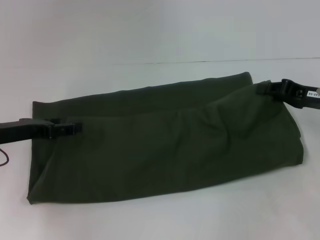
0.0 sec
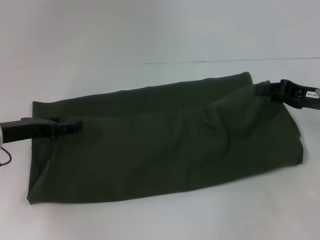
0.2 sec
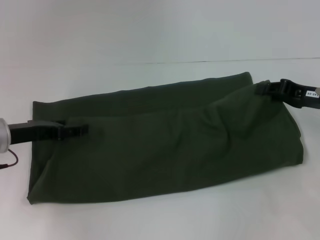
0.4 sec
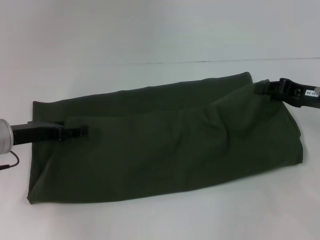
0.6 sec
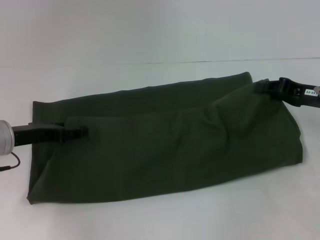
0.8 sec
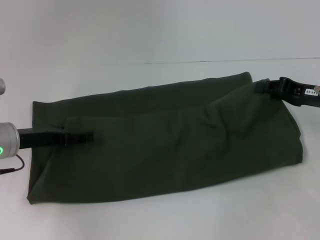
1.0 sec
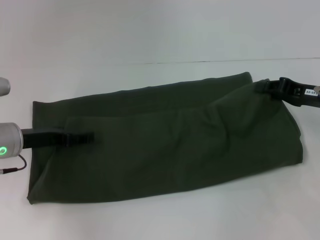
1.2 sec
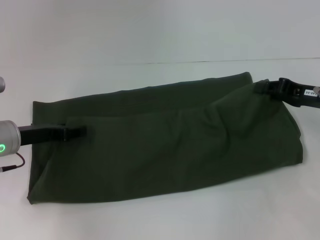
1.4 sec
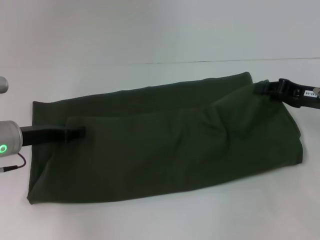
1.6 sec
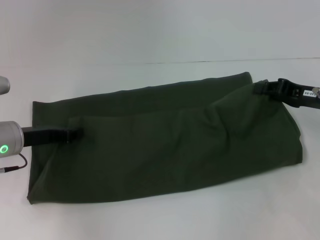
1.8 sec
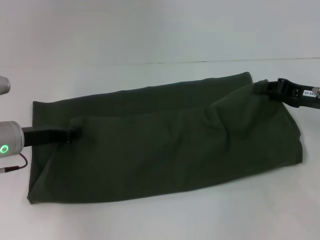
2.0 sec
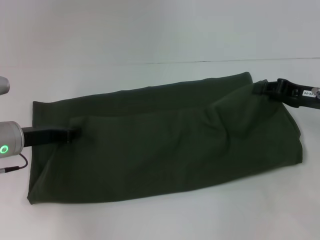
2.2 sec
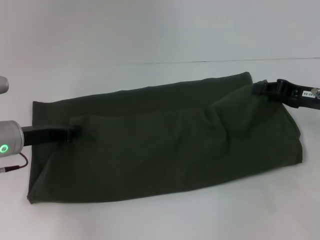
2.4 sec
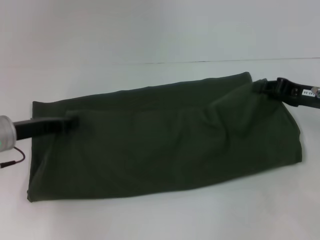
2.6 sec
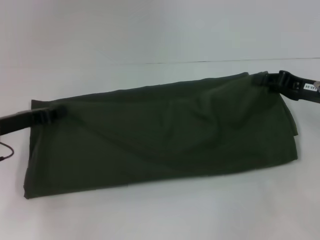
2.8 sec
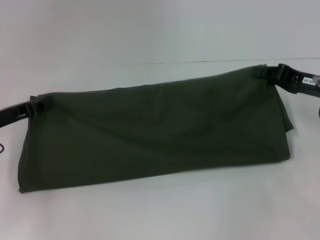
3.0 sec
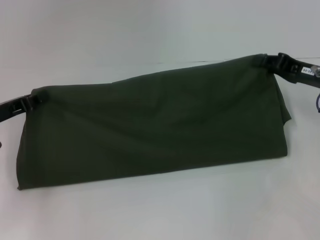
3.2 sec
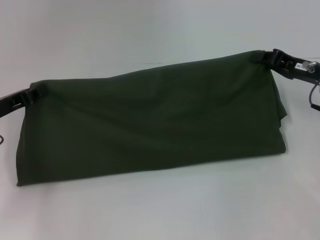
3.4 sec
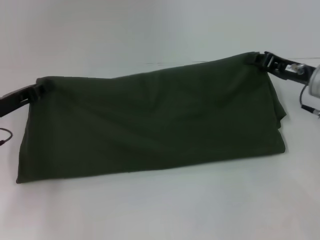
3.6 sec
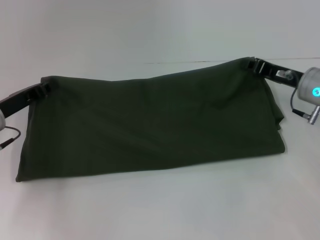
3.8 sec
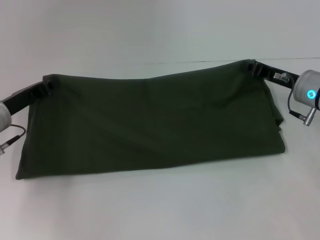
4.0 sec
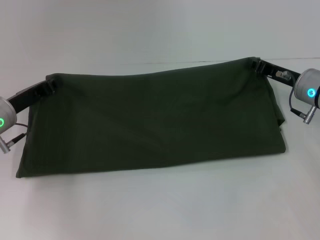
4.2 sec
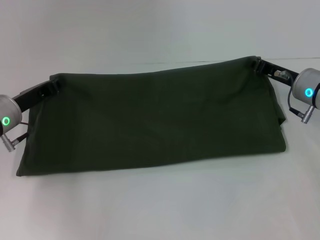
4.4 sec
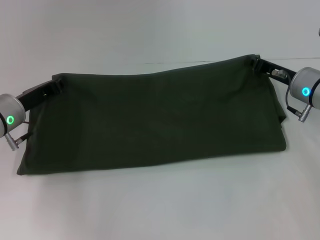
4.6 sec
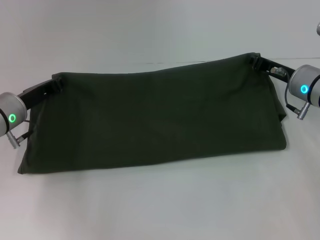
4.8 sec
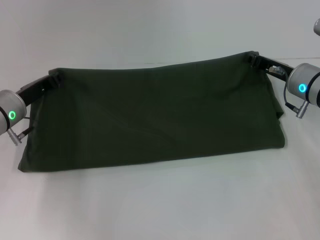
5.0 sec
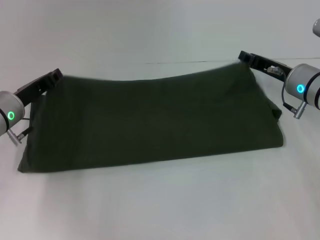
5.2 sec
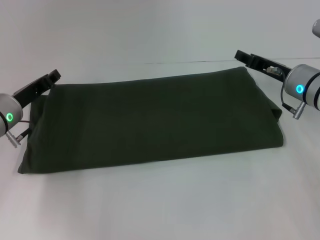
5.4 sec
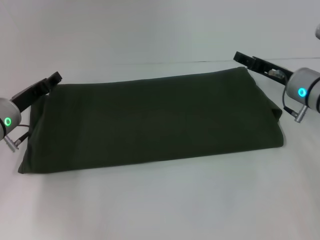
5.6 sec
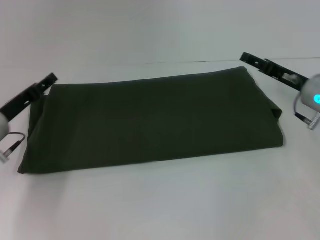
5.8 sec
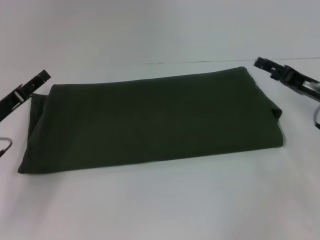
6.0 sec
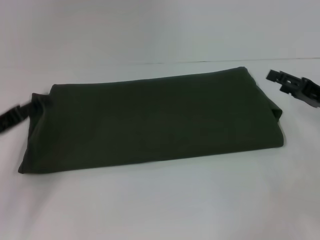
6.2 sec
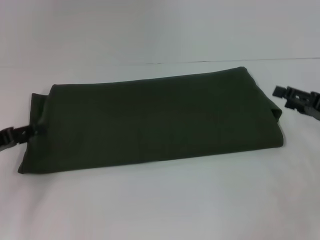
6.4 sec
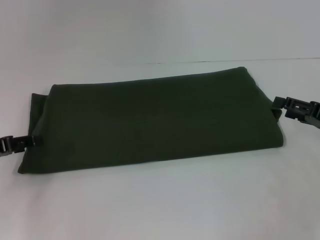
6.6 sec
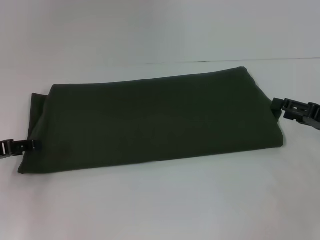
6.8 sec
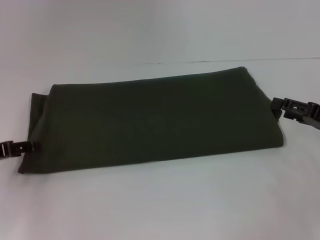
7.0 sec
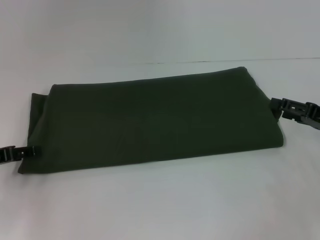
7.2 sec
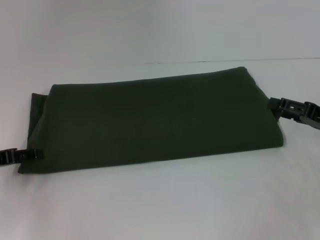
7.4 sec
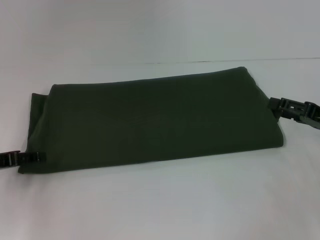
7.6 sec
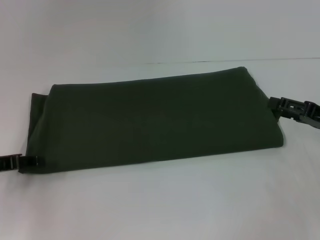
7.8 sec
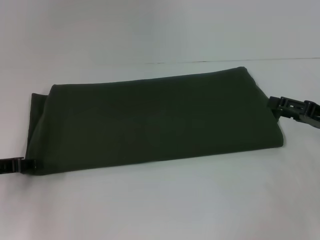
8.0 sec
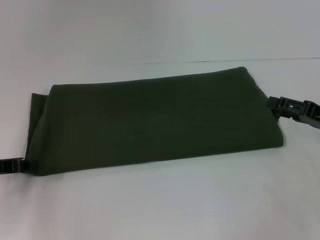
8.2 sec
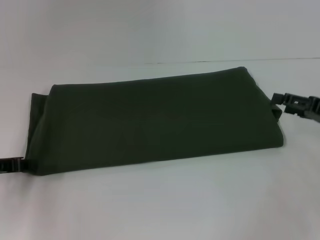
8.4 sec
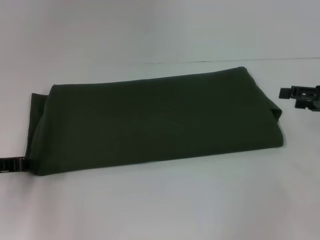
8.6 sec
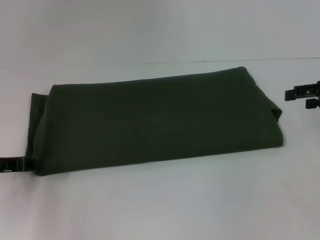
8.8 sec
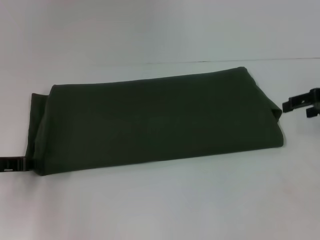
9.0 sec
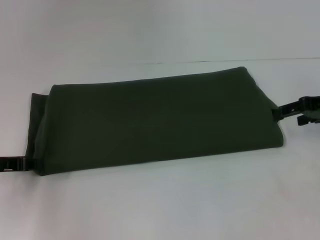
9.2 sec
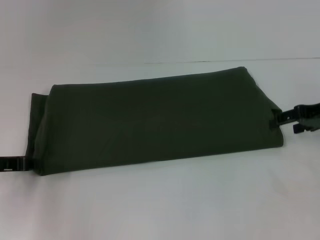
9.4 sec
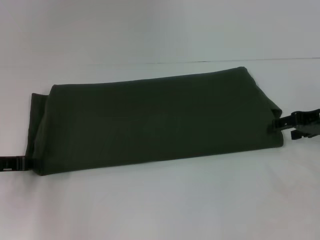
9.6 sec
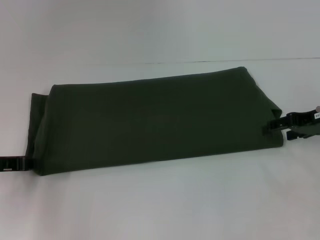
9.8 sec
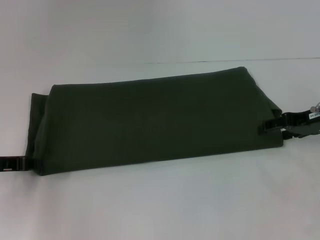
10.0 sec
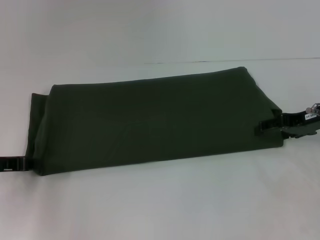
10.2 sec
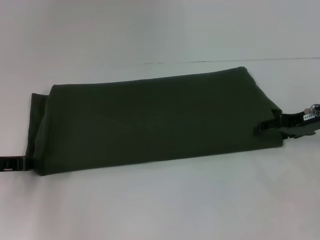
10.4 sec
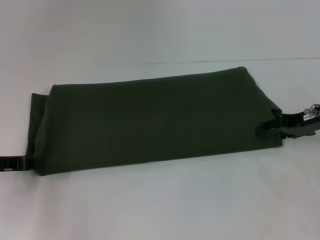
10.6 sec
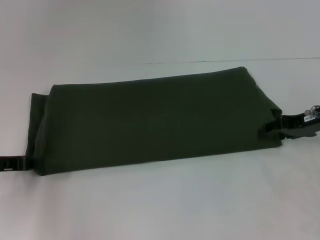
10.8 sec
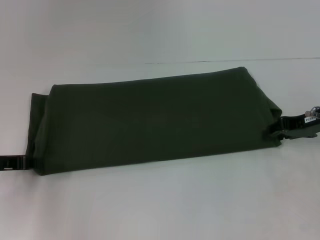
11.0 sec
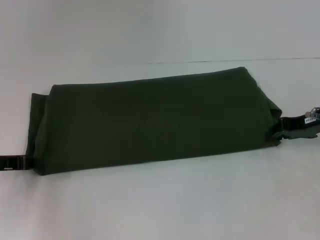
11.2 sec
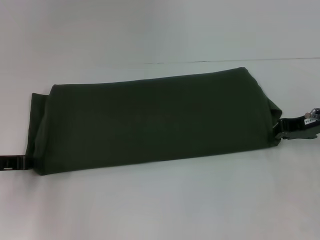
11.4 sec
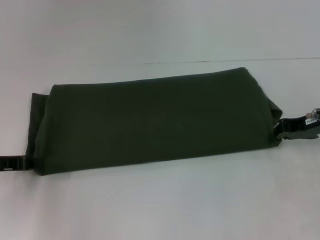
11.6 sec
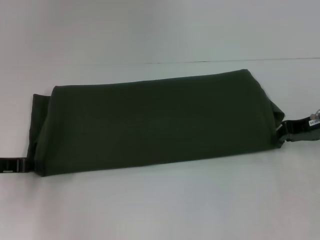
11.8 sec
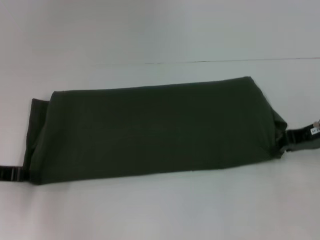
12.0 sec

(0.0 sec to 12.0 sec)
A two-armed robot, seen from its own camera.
Step, 0.0 sec - 5.6 sec: Fold the clothes with your left hand.
Step, 0.0 sec - 5.6 sec: Fold the clothes with your right hand.
0.0 sec - 1.6 sec: The grippers make only small movements.
1.6 sec - 3.0 sec: The left gripper closes.
3.0 sec - 4.4 sec: The right gripper shifts by about 5 cm, while the left gripper shifts by roughly 5 cm.
4.4 sec - 6.0 sec: The right gripper moves roughly 5 cm, and opens up; the left gripper moves backward, about 5 cm, and opens up.
6.0 sec - 7.6 sec: The right gripper moves some 5 cm.
7.6 sec - 9.0 sec: The left gripper closes up; the right gripper moves upward and forward, roughly 10 cm.
9.0 sec - 10.4 sec: The right gripper ends up roughly 5 cm from where it was.
10.4 sec - 12.0 sec: The right gripper closes its fingers.

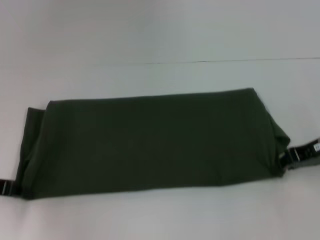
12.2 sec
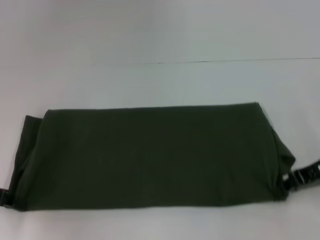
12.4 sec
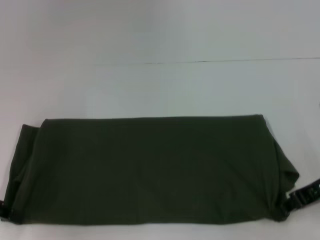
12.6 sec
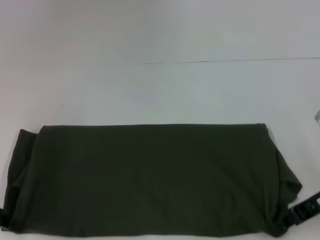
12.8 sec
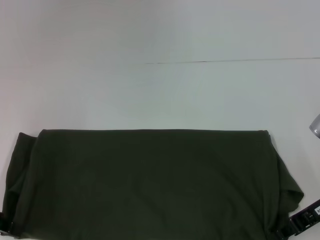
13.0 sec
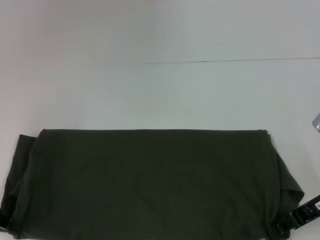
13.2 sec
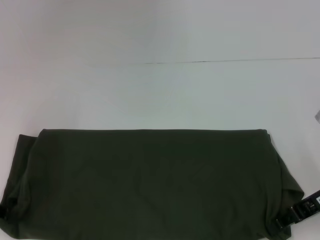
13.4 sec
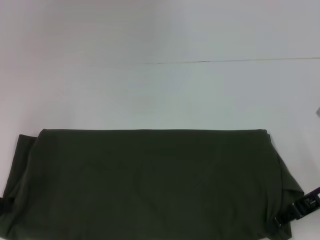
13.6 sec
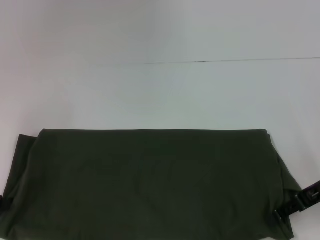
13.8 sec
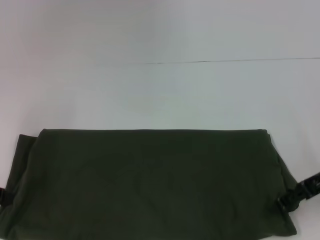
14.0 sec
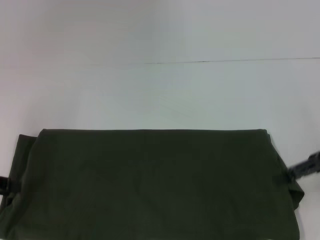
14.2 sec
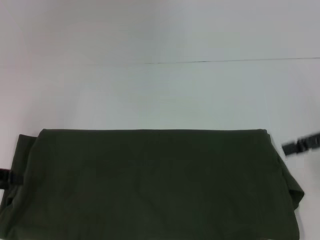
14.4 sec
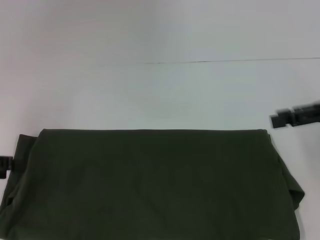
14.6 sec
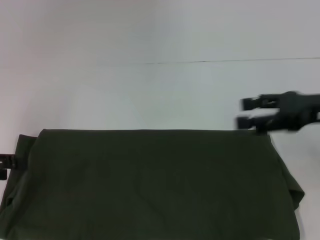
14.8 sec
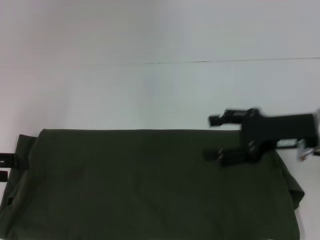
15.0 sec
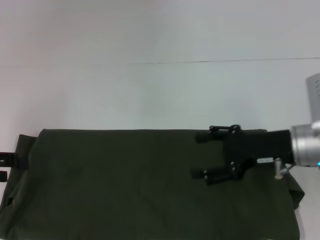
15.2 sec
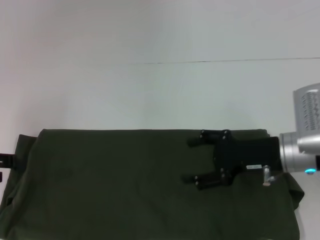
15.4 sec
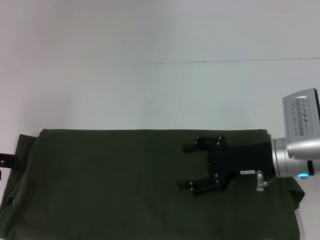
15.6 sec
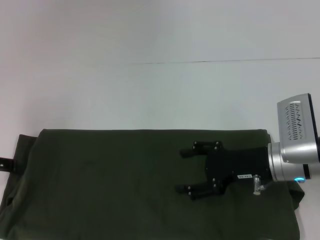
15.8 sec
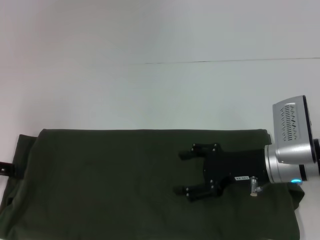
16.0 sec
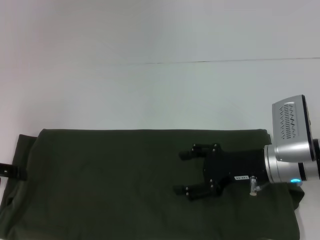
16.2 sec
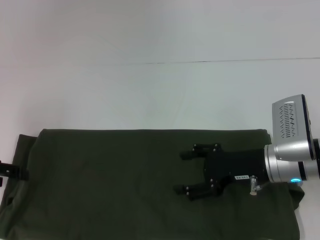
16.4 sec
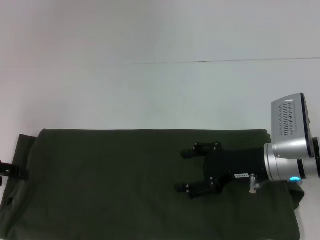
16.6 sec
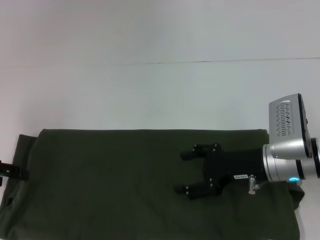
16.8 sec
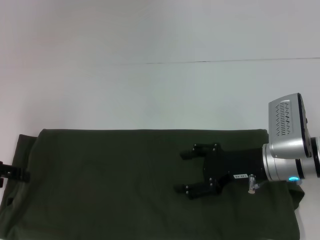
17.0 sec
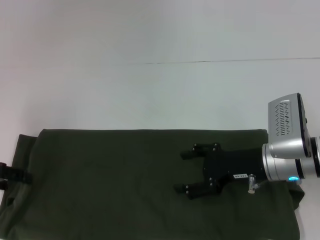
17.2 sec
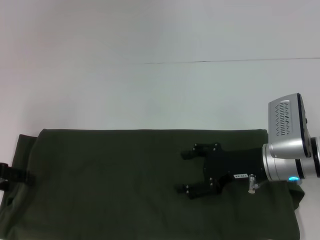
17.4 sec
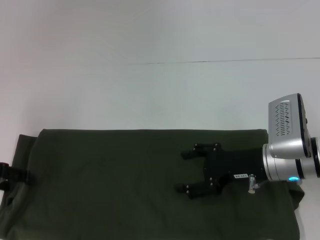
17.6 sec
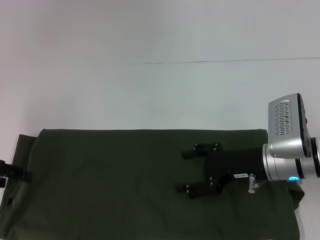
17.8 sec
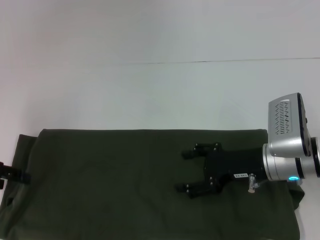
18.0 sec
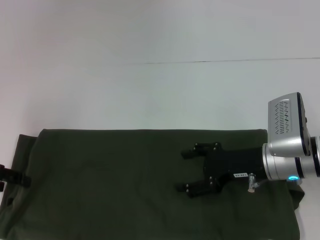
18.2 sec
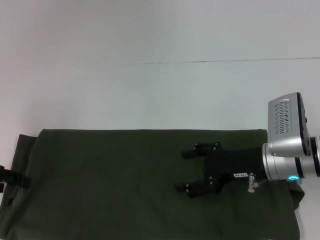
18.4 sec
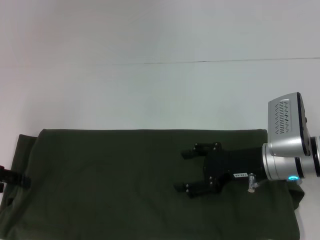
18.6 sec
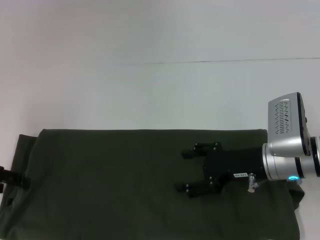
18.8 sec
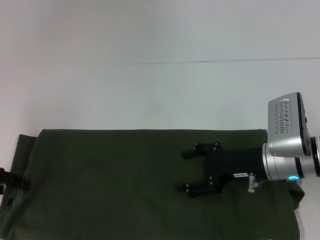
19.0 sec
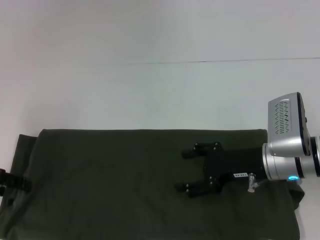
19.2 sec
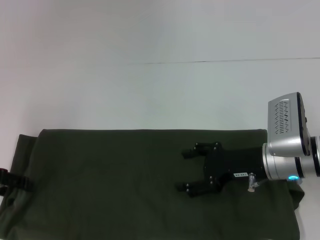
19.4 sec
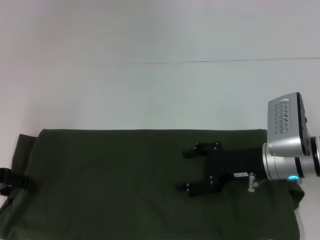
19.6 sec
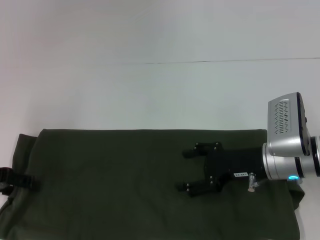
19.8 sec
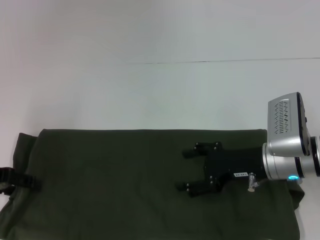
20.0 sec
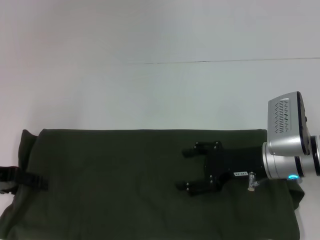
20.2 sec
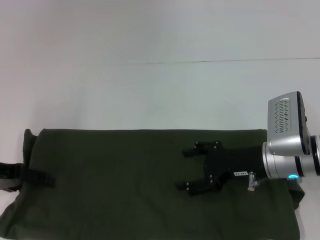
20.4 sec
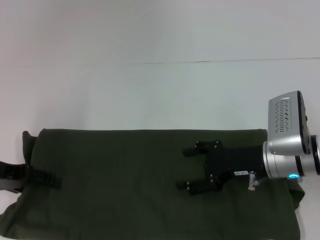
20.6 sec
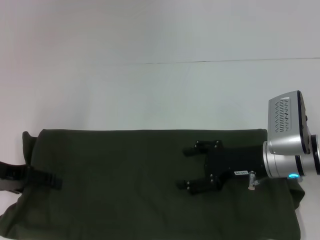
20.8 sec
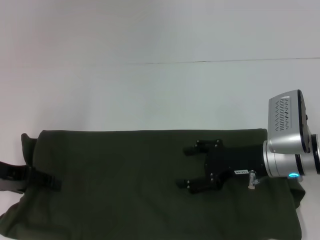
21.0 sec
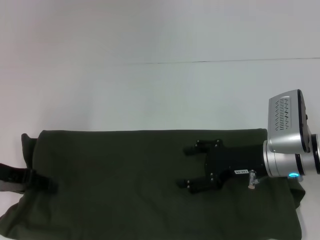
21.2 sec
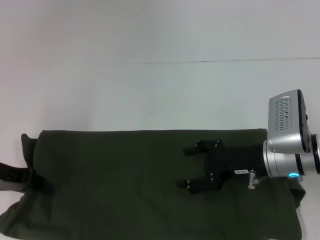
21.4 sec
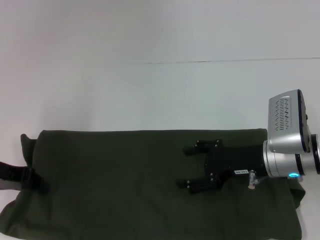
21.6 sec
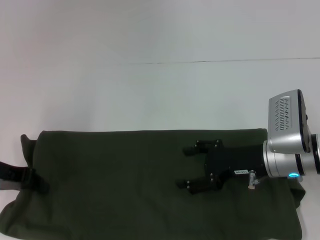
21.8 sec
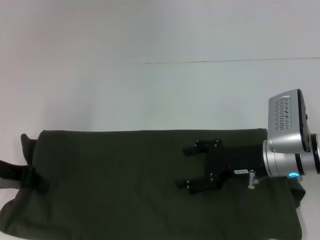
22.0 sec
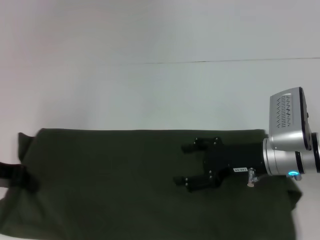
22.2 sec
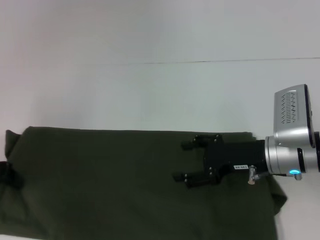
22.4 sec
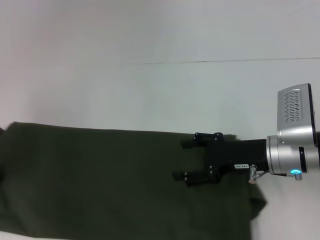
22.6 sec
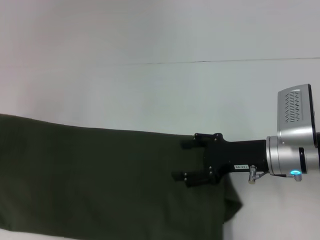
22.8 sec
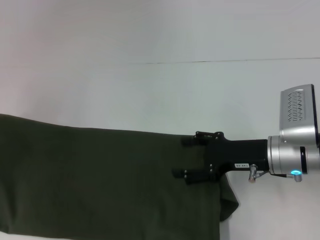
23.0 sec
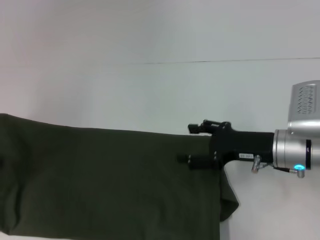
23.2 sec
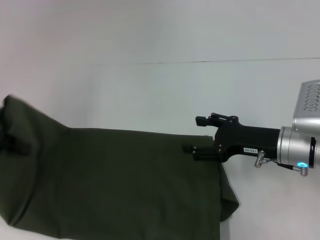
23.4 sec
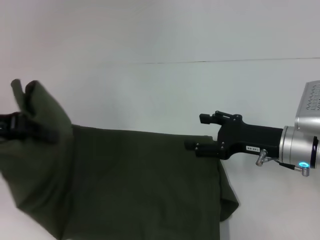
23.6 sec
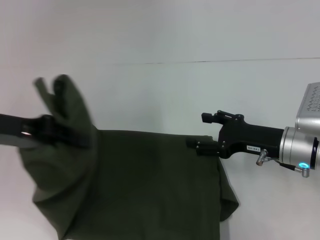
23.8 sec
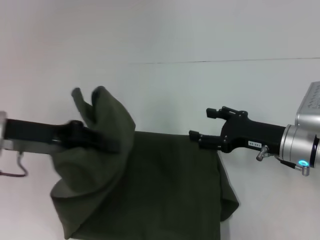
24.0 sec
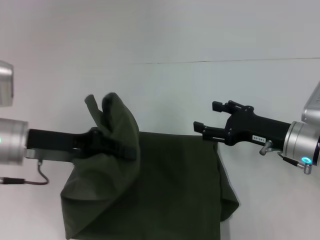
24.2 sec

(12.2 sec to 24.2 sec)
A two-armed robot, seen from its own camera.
12.2 sec - 13.8 sec: The right gripper opens its fingers.
13.8 sec - 15.2 sec: The left gripper opens its fingers, while the right gripper is displaced to the left by some 5 cm, and opens.
15.2 sec - 16.6 sec: There are only small adjustments of the grippers.
16.6 sec - 18.2 sec: Neither gripper changes place.
18.2 sec - 19.8 sec: The two grippers keep their place.
19.8 sec - 21.2 sec: The grippers make only small movements.
21.2 sec - 22.6 sec: The left gripper shifts by roughly 5 cm, and closes its fingers.
22.6 sec - 24.2 sec: The left gripper heads to the right, covering roughly 15 cm.
